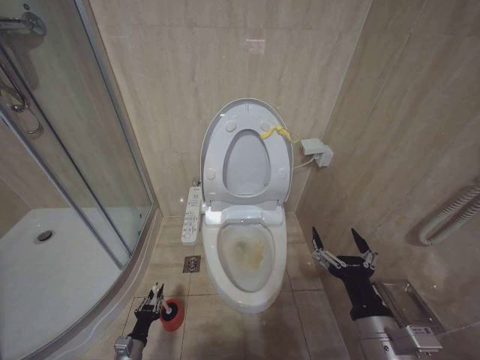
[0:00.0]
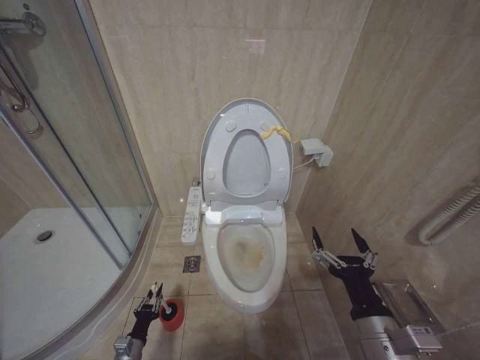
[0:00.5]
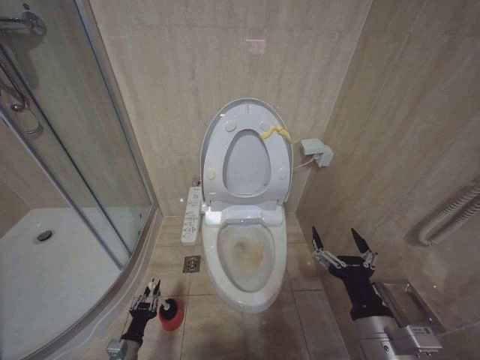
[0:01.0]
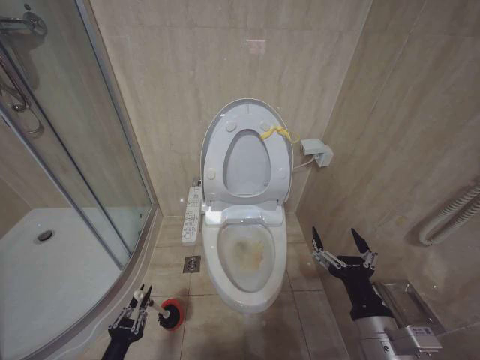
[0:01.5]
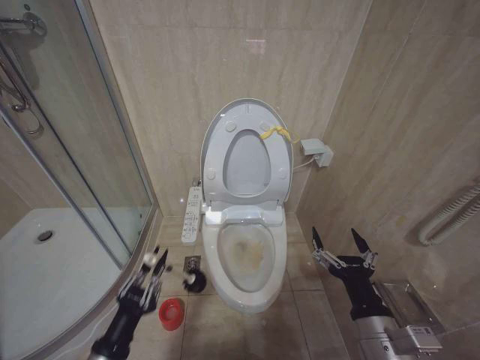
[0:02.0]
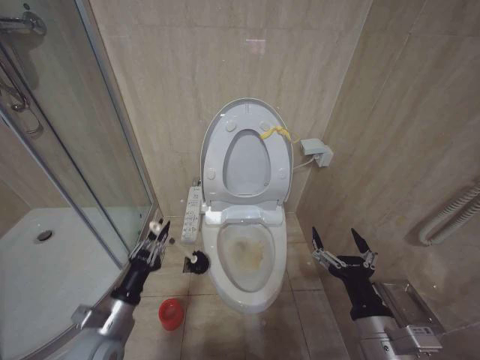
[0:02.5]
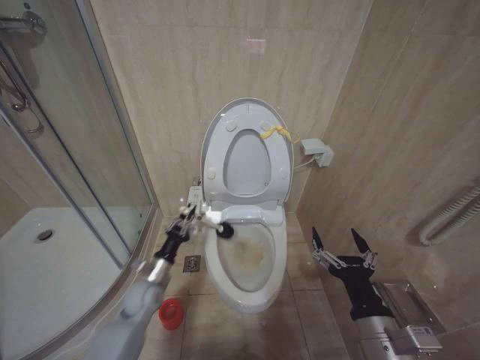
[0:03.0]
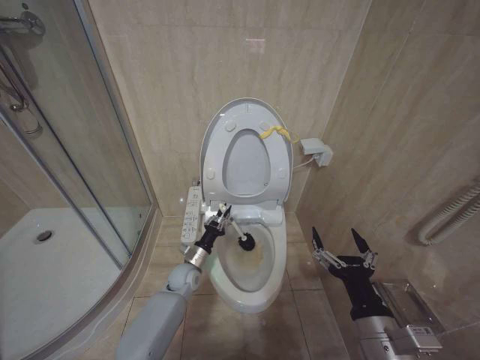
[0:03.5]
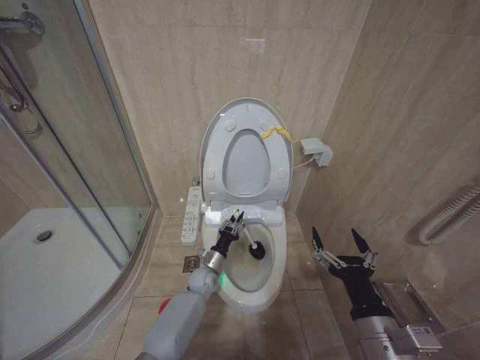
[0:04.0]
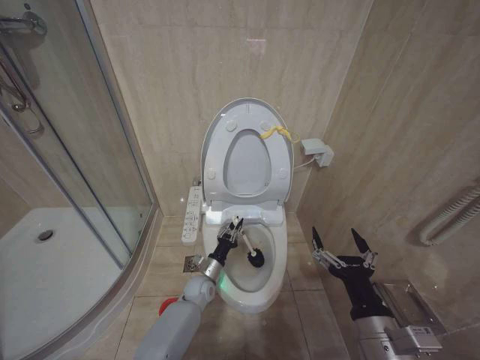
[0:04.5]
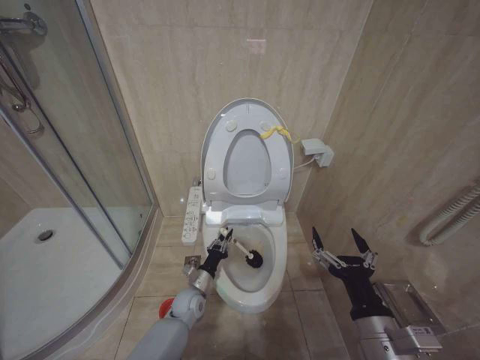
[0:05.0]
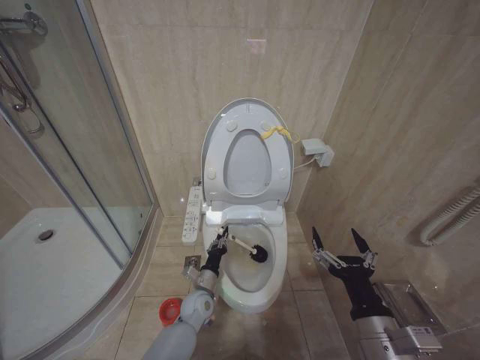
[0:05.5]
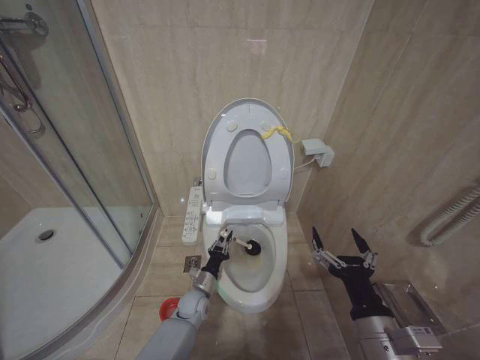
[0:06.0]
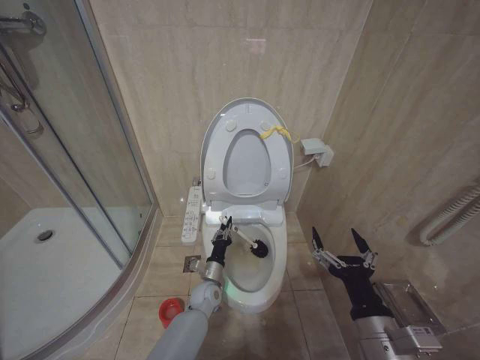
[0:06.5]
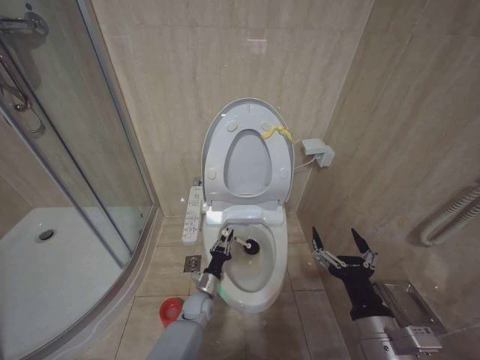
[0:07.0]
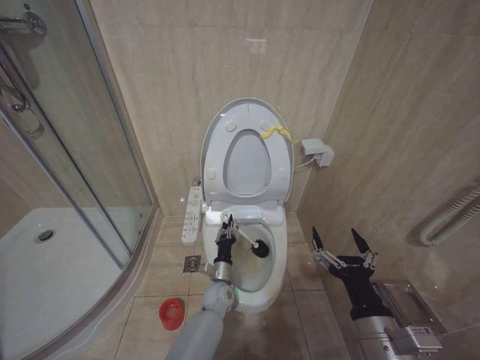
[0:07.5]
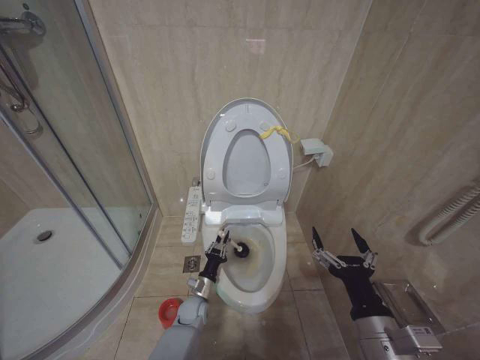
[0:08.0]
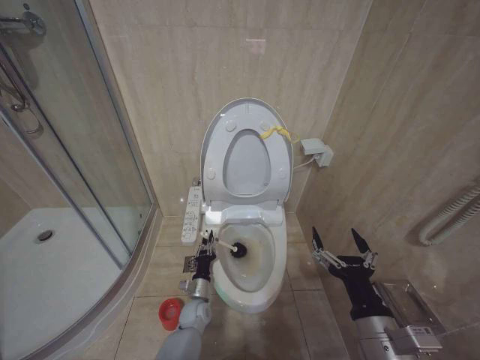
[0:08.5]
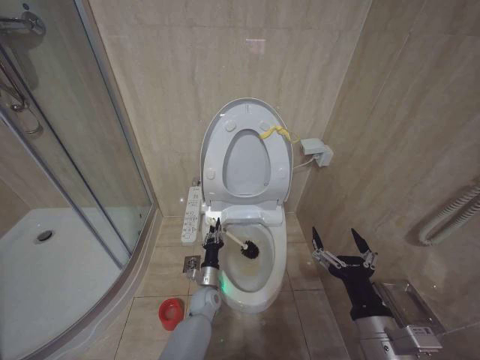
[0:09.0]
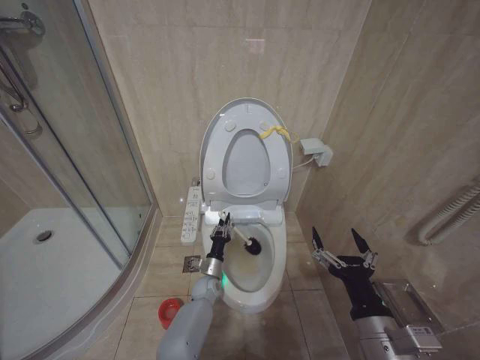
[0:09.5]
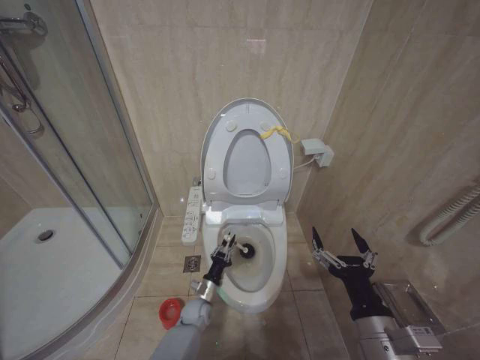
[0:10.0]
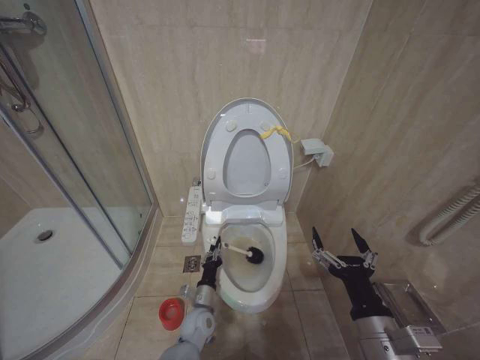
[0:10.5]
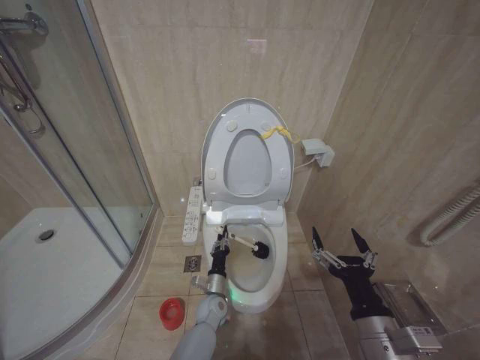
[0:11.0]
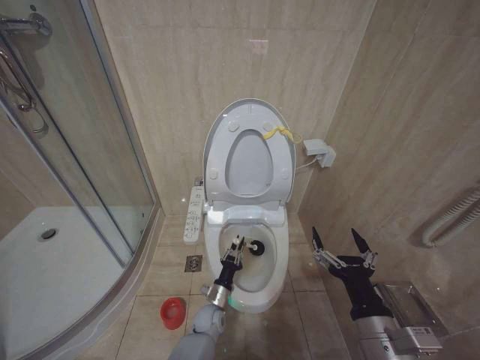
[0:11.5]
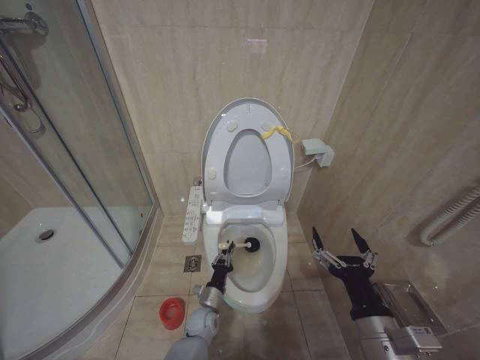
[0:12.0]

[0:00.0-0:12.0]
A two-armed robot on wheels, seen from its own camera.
Task of the whole recording: Open the toilet lid, clean the toilet bowl with a toilet brush, close the toilet lid, and flush.
0:00.0 to 0:02.0: The left gripper goes about 25 cm upward and backward.
0:02.0 to 0:04.0: The left gripper moves forward and to the right, about 35 cm.
0:04.0 to 0:06.0: The left gripper is displaced backward by roughly 5 cm.
0:06.0 to 0:08.0: The left gripper travels to the right and back again, roughly 10 cm each way.

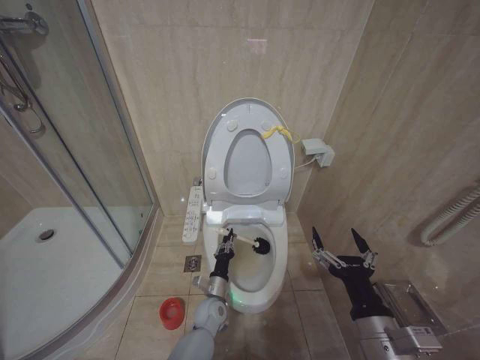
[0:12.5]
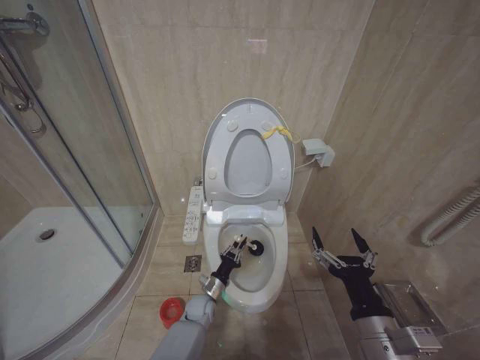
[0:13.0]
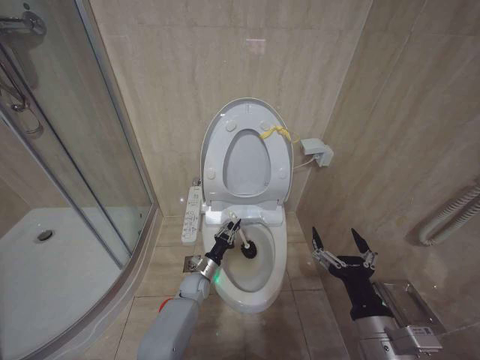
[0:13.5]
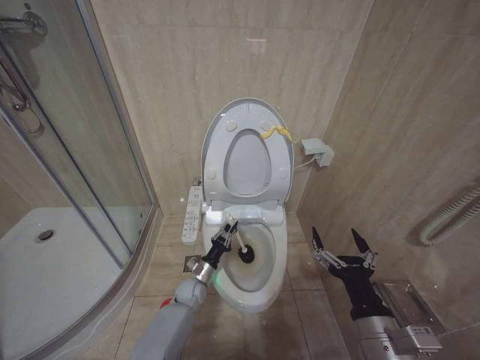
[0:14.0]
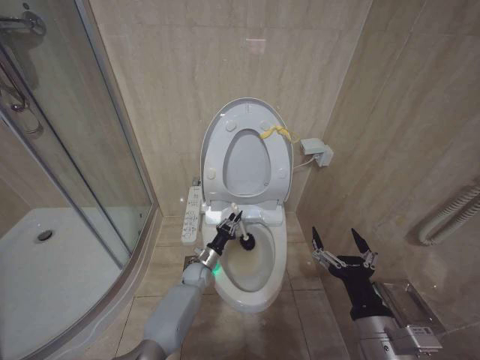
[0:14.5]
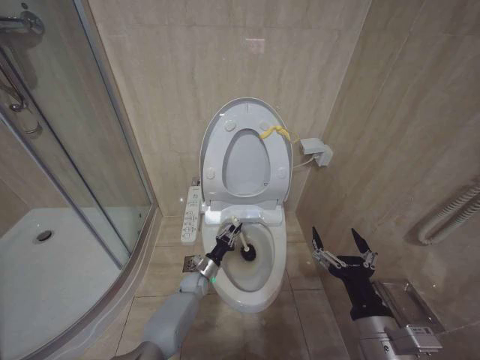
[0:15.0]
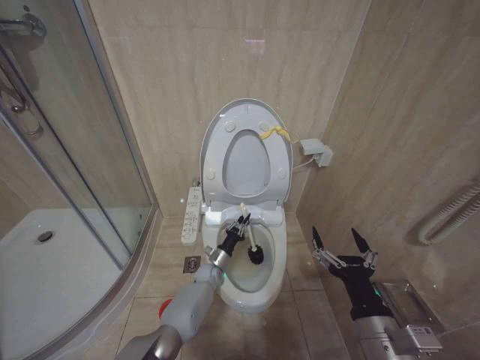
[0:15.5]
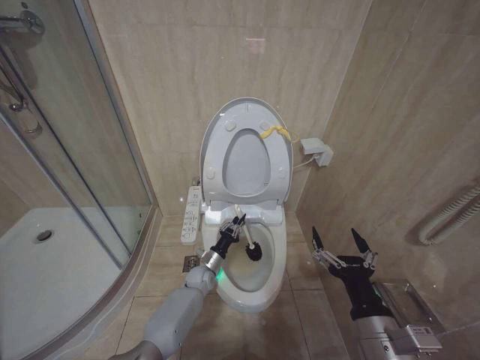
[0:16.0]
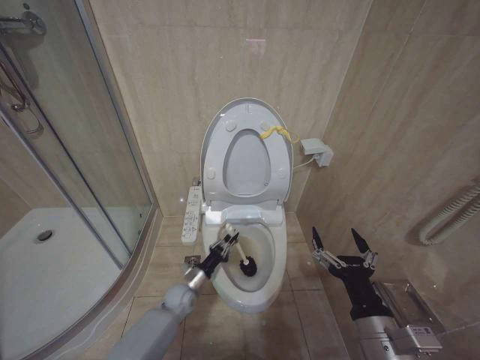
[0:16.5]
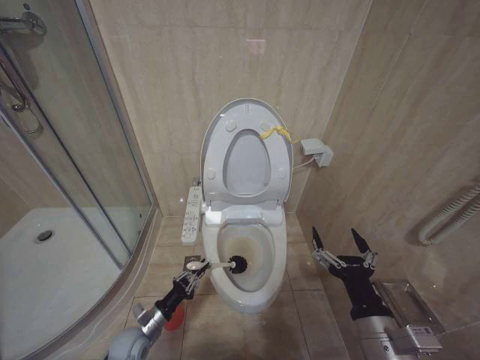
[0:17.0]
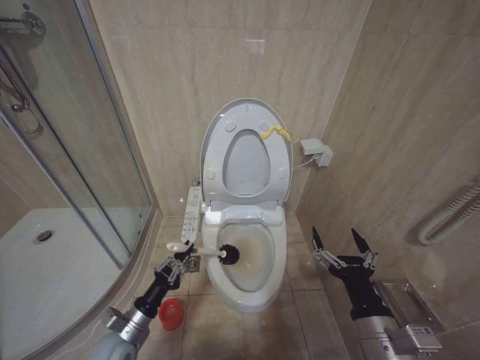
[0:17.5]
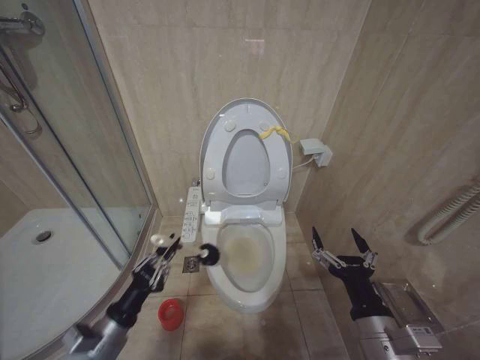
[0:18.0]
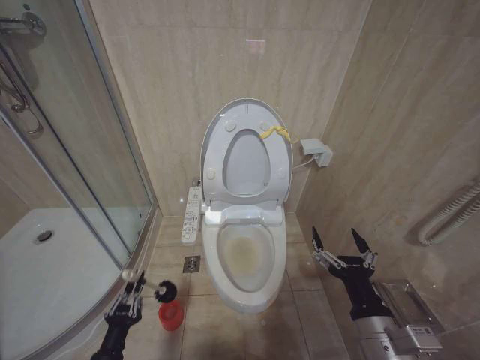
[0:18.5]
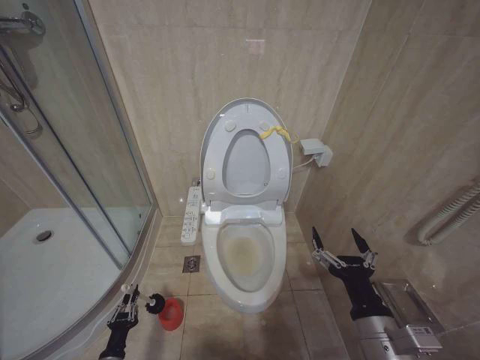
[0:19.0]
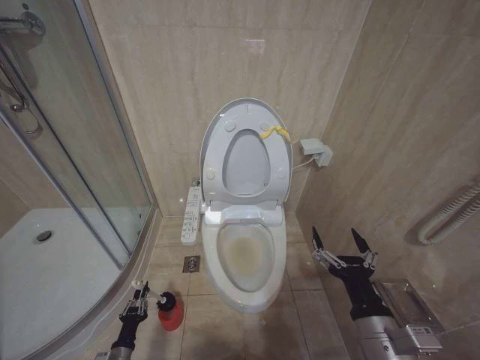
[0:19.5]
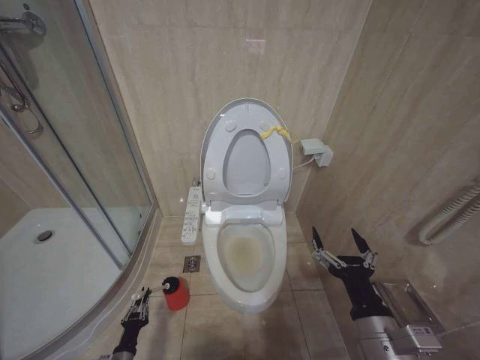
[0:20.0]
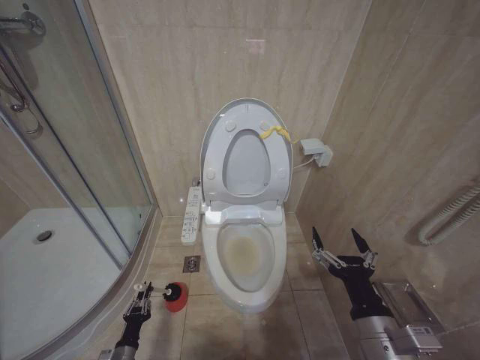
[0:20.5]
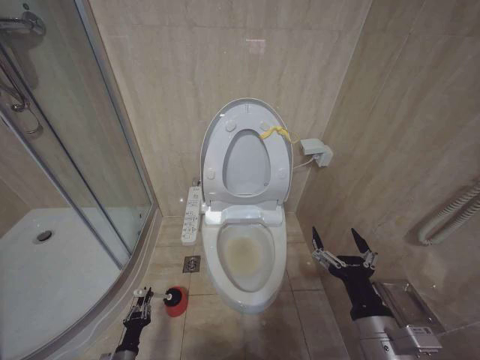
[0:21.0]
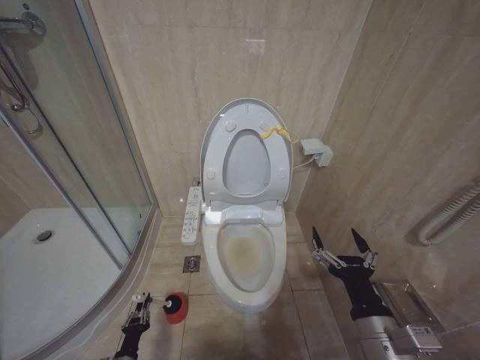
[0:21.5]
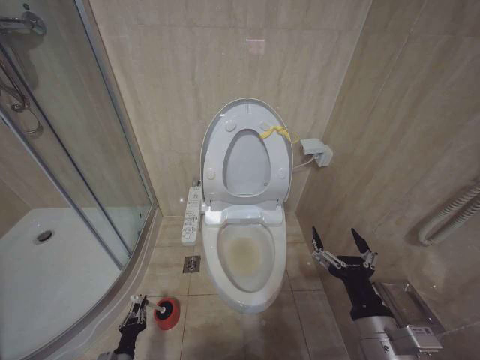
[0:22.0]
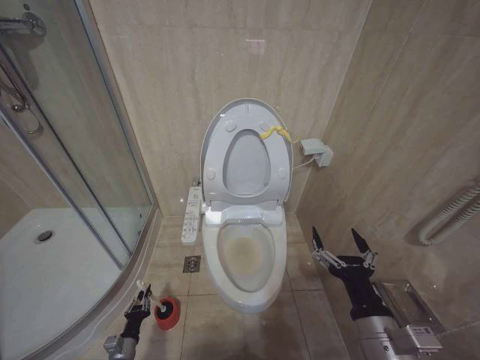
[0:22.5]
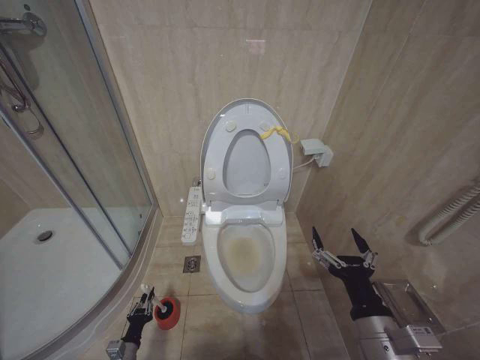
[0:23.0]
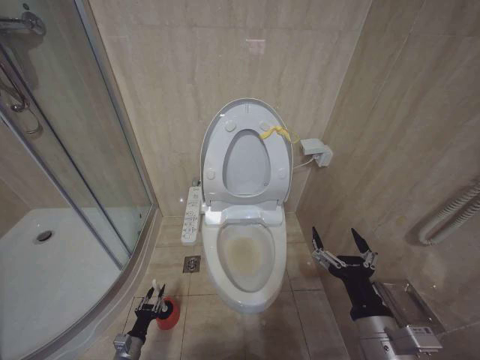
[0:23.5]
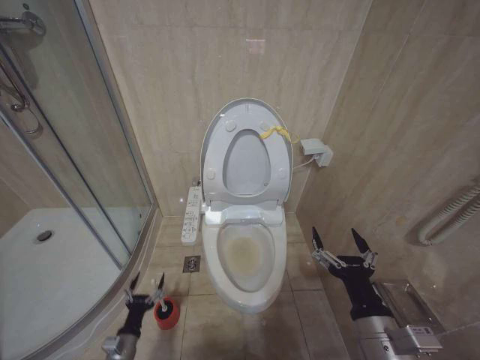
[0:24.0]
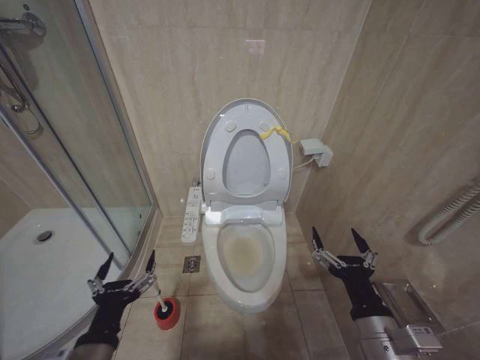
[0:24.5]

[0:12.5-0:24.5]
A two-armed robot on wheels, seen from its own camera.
Task of the whole recording: Open the toilet lid, clean the toilet bowl with a toilet brush, close the toilet lid, and flush.
0:12.5 to 0:14.5: The left gripper goes roughly 15 cm forward and to the left.
0:14.5 to 0:16.5: The left gripper heads backward, covering some 5 cm.
0:16.5 to 0:18.5: The left gripper goes roughly 30 cm backward and to the left.
0:18.5 to 0:20.5: The left gripper shifts roughly 20 cm downward.
0:20.5 to 0:22.5: The grippers stay close to where they were, moving slightly.
0:22.5 to 0:24.5: The left gripper is displaced upward by some 35 cm, and opens up.

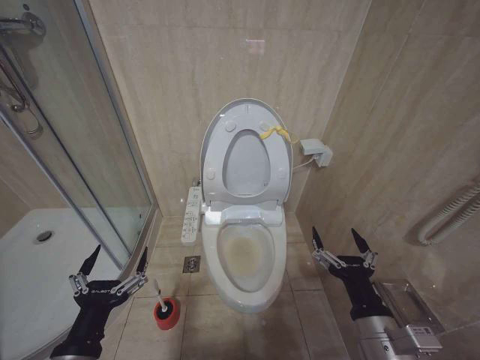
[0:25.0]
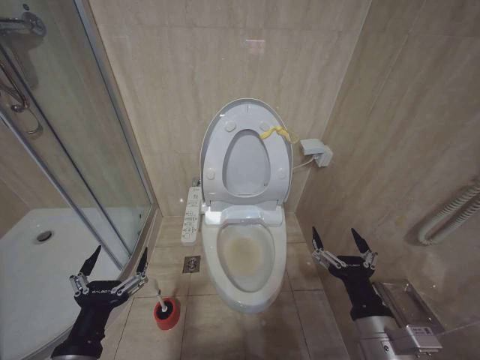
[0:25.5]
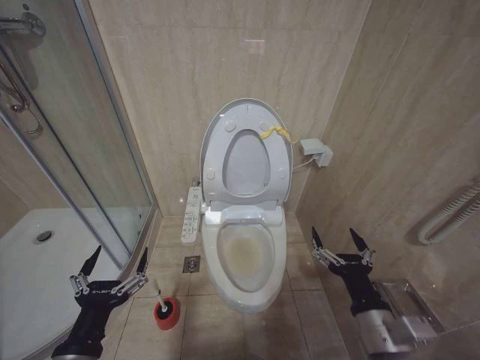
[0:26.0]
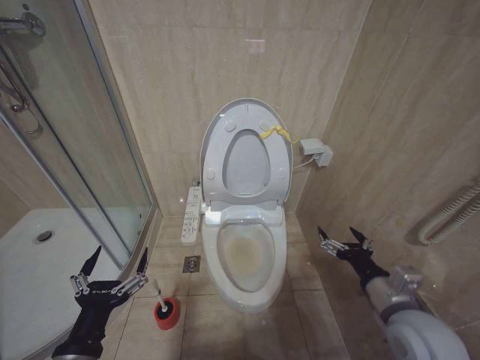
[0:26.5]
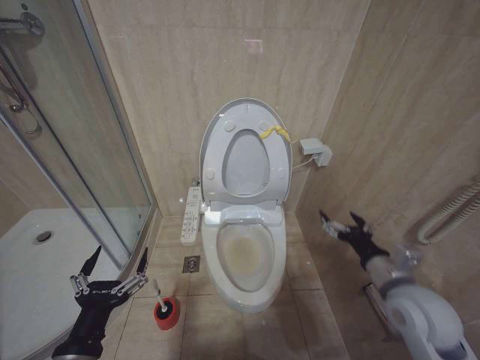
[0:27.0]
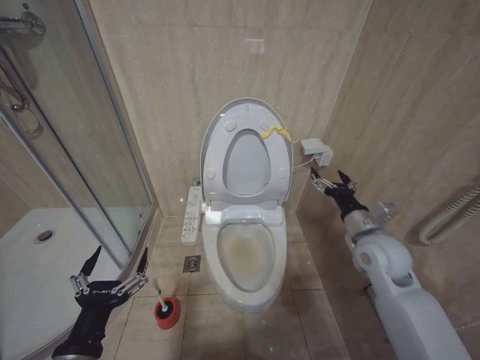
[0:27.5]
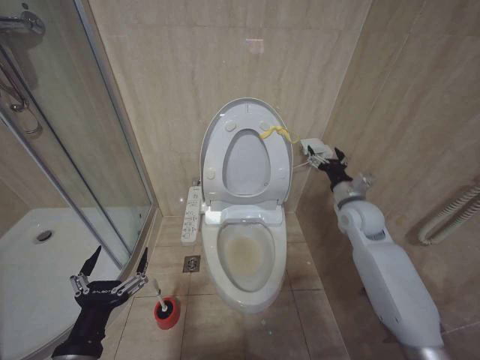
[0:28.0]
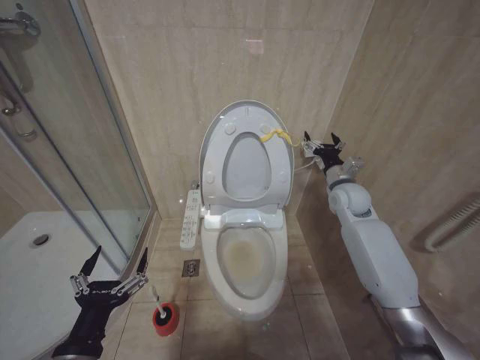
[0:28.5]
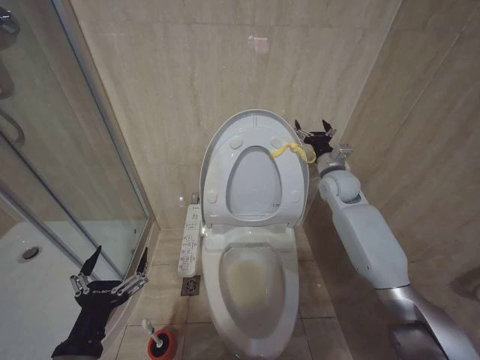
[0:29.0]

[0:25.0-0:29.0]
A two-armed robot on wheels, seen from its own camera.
Task of the whole recording: Open the toilet lid, clean the toilet bowl with a toilet brush, close the toilet lid, and flush.
0:25.0 to 0:27.0: The right gripper moves to the right and forward, approximately 10 cm.
0:27.0 to 0:29.0: The right gripper is displaced forward by approximately 30 cm.
